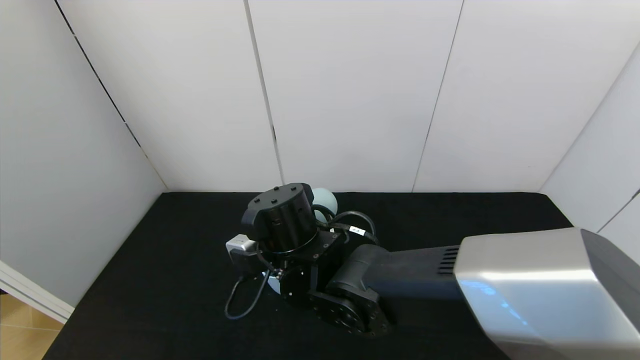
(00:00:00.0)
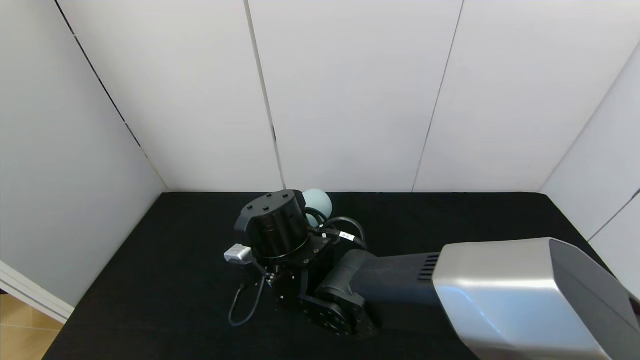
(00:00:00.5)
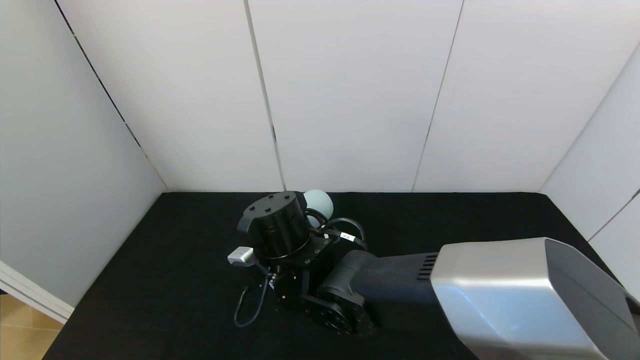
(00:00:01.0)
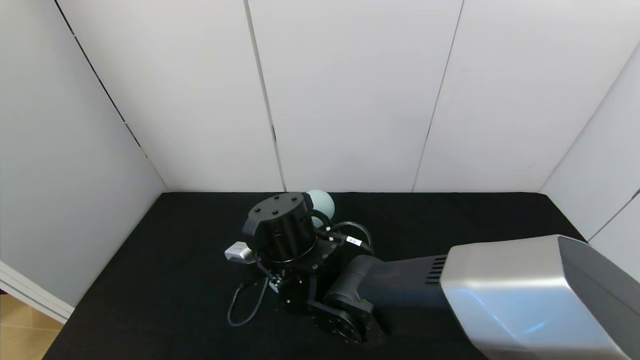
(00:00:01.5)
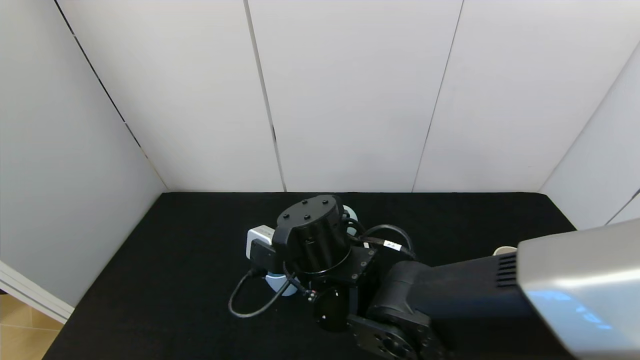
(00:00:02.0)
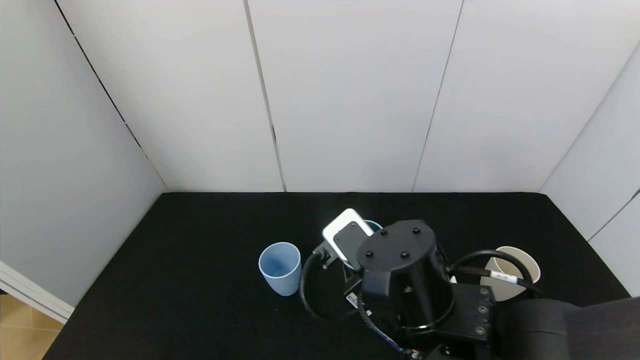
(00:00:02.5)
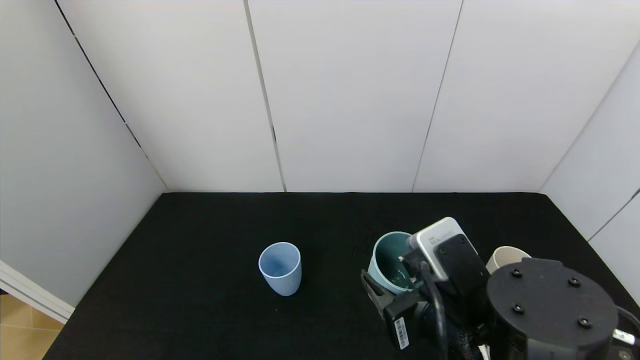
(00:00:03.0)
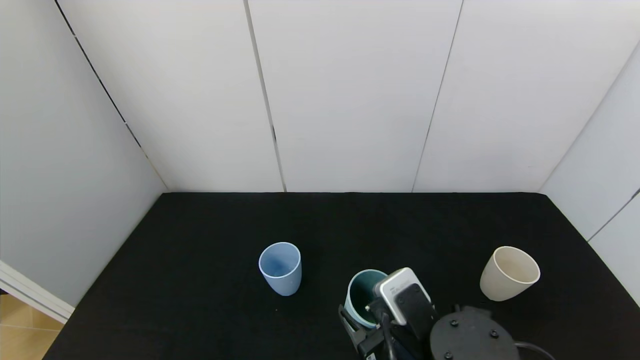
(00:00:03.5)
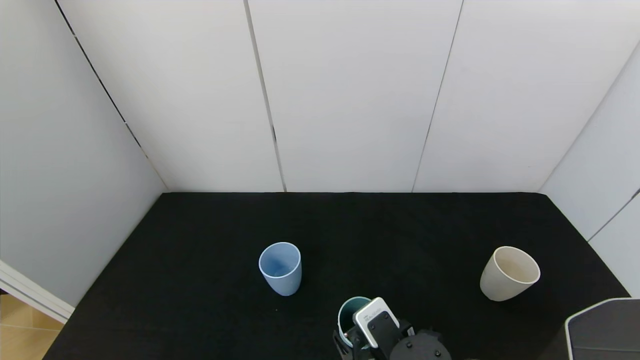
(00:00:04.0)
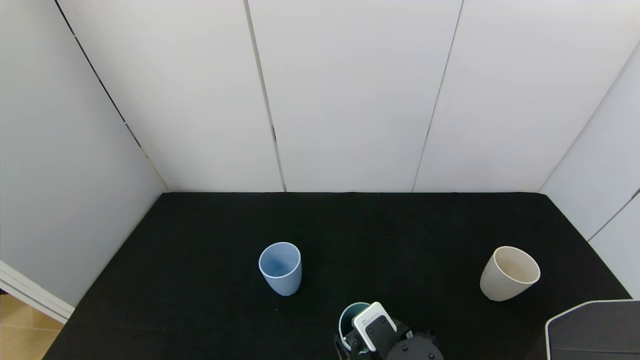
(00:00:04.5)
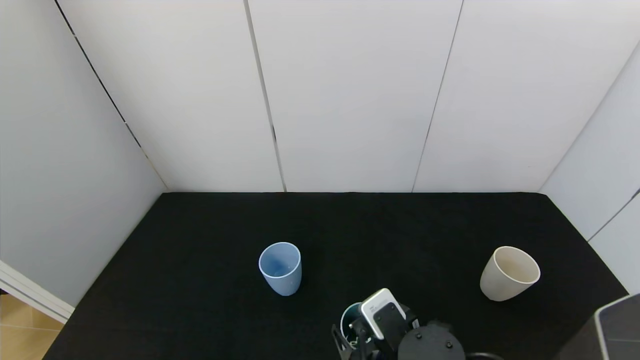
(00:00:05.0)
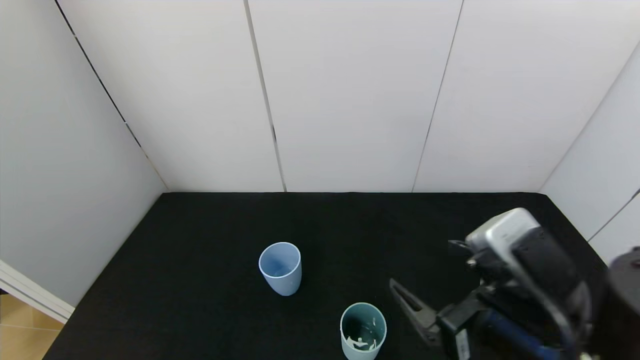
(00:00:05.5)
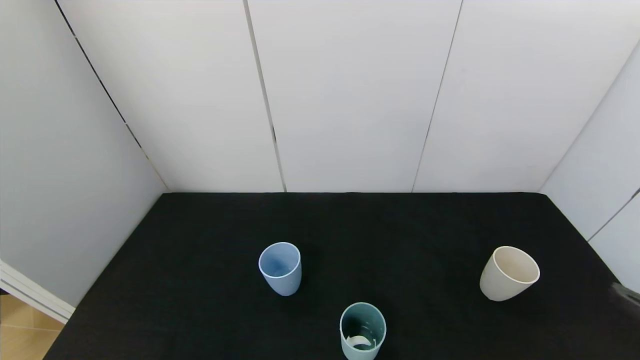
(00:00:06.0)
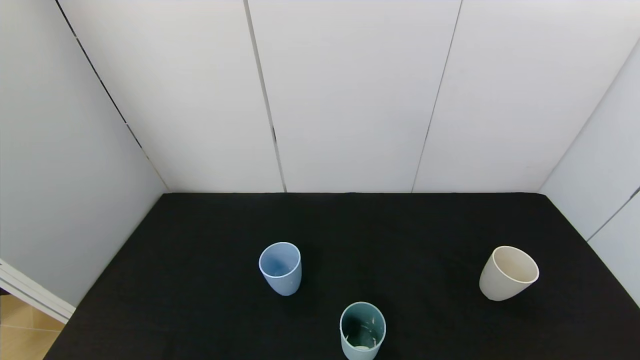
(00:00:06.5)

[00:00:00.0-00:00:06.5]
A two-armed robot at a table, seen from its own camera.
Task of the whole recording: use the gripper to pour the water into the other two cups on black table.
Step, 00:00:00.0 to 00:00:02.0: Pour water from green cup to blue cup with the right gripper.
Step, 00:00:02.5 to 00:00:05.0: Place the green cup with the right gripper.
00:00:00.0 to 00:00:02.0: The right gripper shifts by approximately 5 cm.
00:00:02.0 to 00:00:04.5: The right gripper shifts about 20 cm downward, to the right and backward.
00:00:04.5 to 00:00:06.5: The right gripper is displaced to the right, backward and upward by approximately 40 cm, and opens its fingers.
